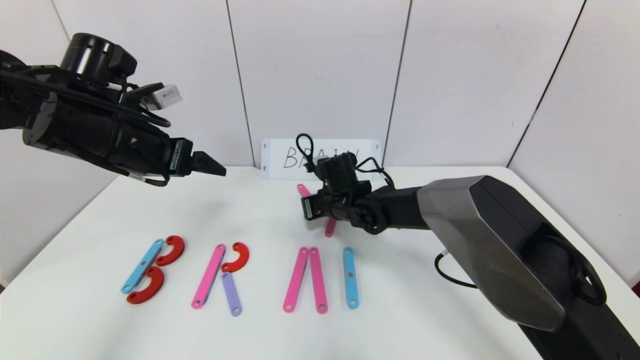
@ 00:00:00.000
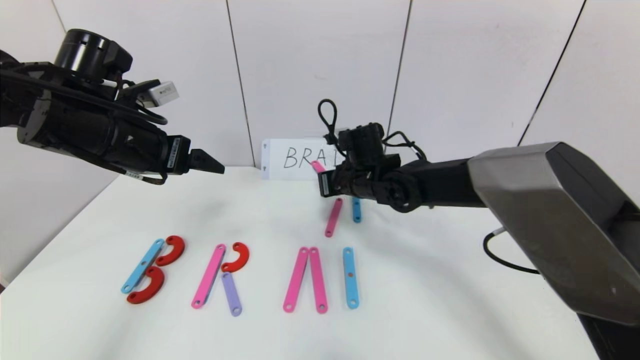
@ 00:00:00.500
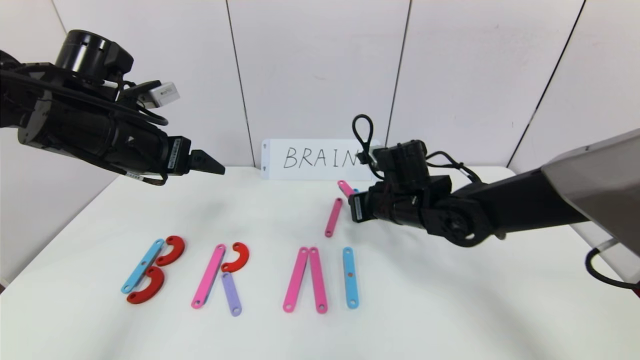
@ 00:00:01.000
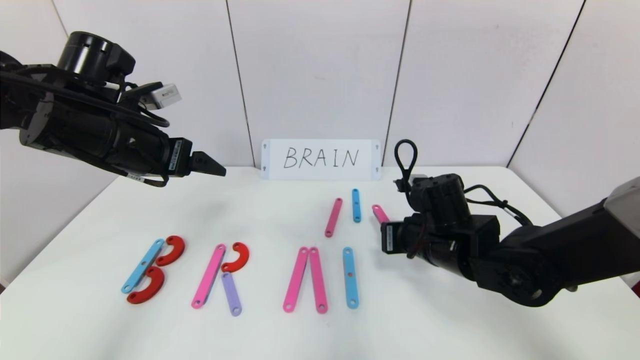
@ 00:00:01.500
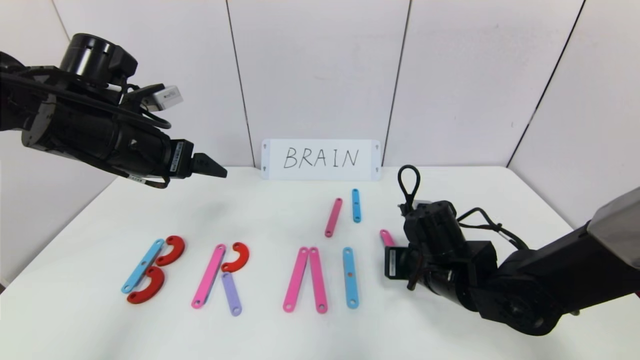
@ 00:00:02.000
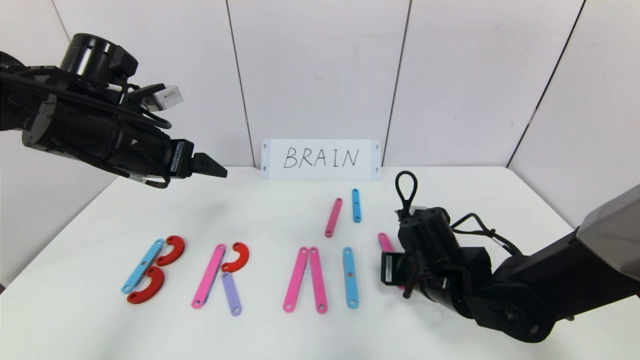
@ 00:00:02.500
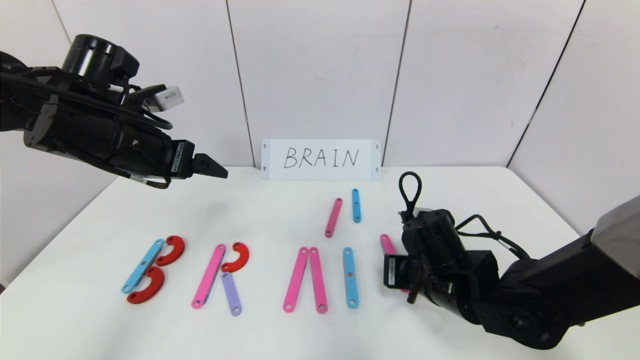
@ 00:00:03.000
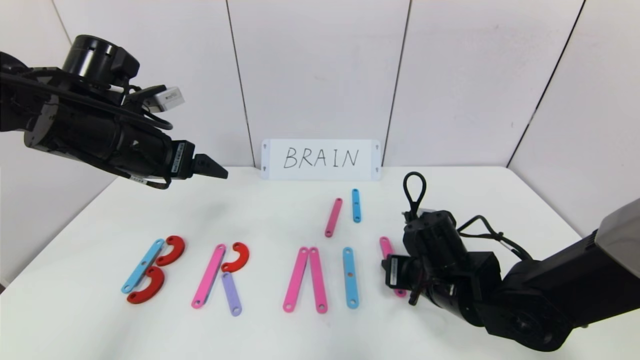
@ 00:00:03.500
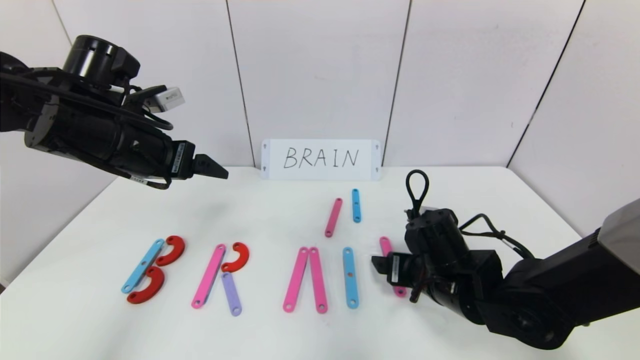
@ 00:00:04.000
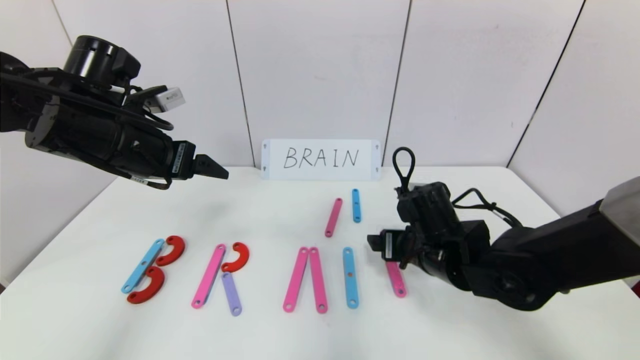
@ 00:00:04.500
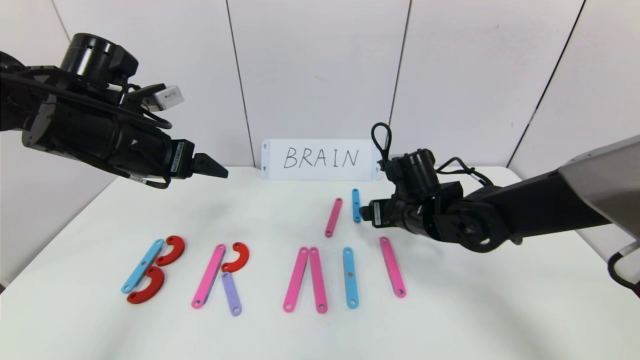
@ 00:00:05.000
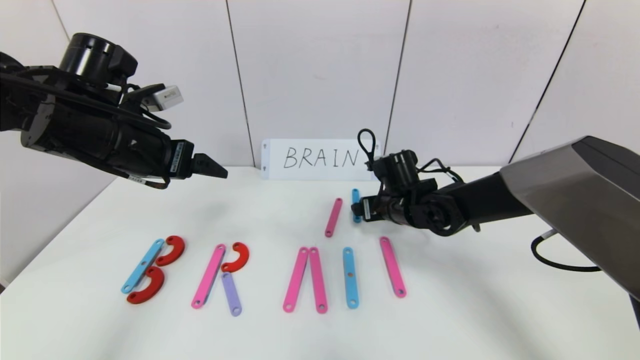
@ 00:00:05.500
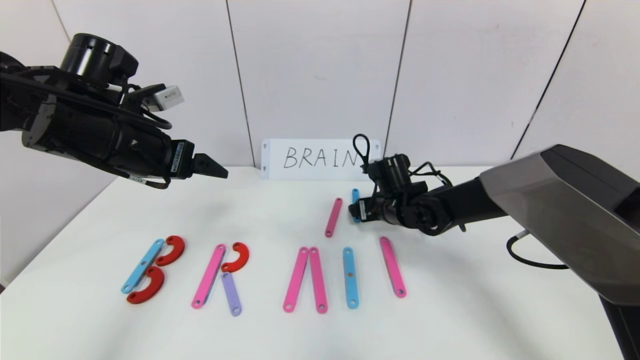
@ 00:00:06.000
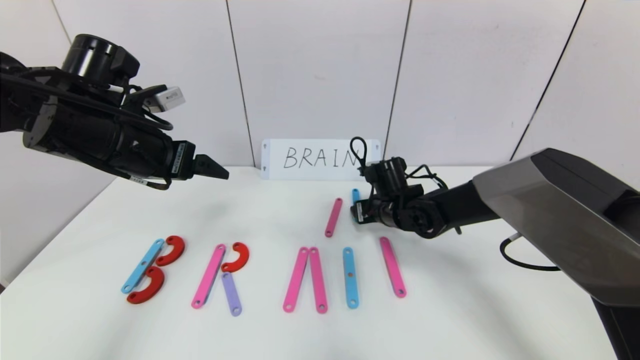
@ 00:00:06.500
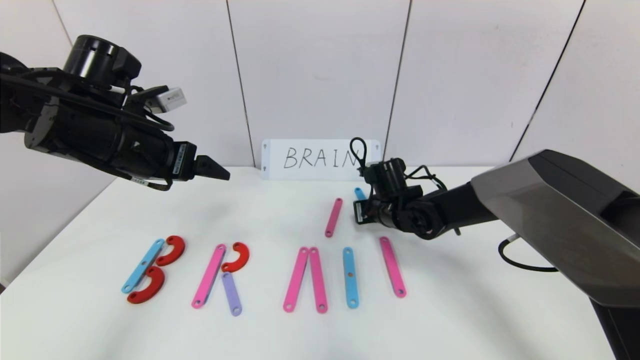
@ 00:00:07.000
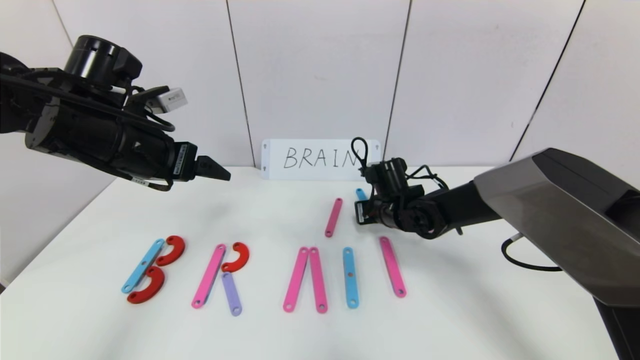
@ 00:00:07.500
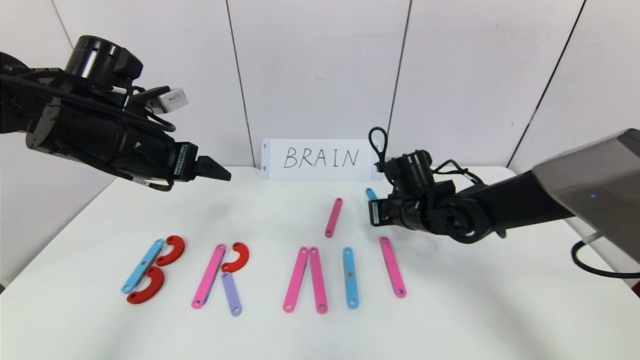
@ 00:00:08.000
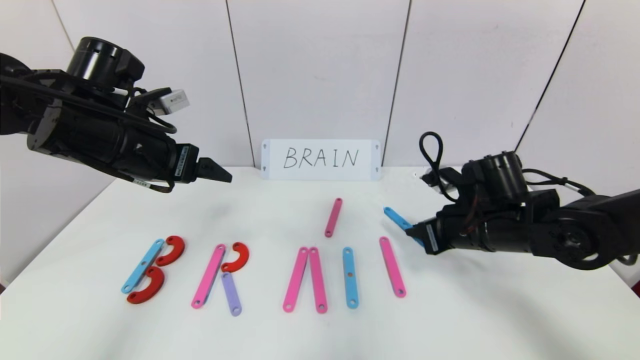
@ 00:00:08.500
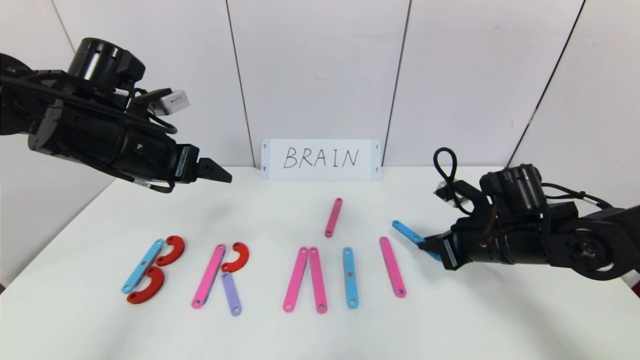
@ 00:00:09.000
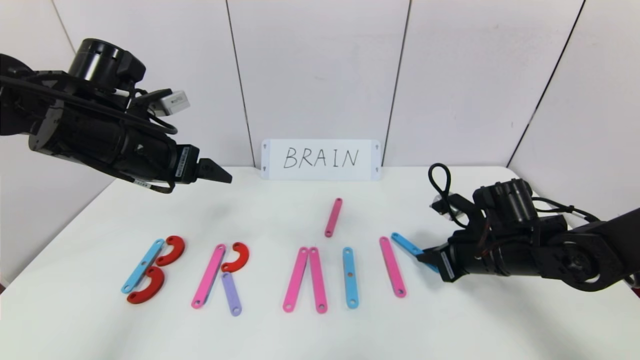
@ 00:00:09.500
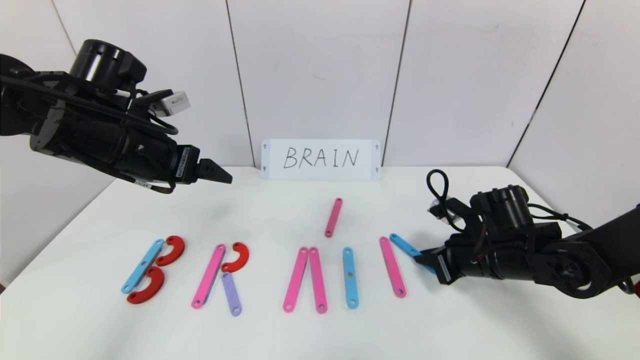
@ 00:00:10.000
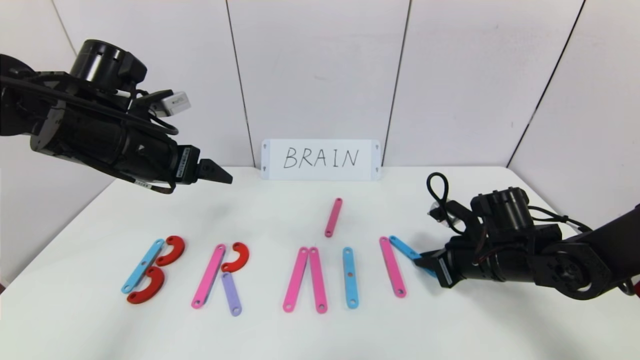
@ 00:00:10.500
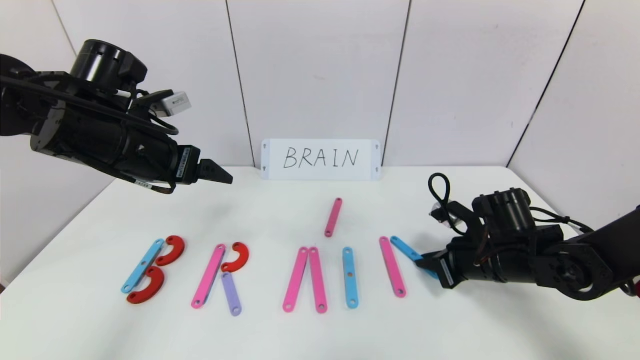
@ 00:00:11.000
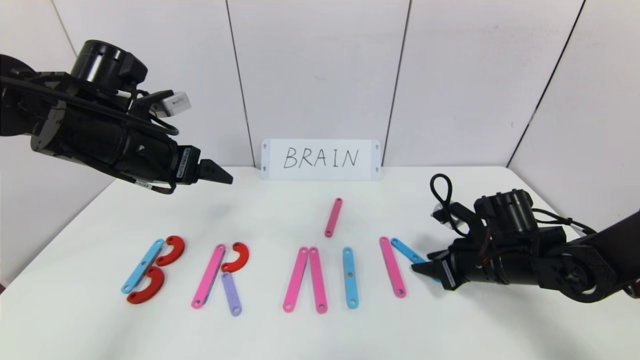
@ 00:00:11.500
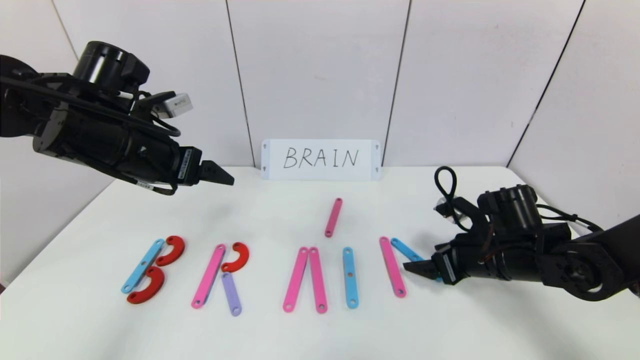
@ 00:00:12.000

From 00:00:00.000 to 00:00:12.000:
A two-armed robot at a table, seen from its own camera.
Task of the whole recording: rearrange the word baai as brain.
From 00:00:00.000 to 00:00:02.000: The right gripper shifts roughly 20 cm backward and to the right.
From 00:00:02.000 to 00:00:04.000: The right gripper opens its fingers.
From 00:00:04.000 to 00:00:06.000: The right gripper heads forward, covering roughly 15 cm.
From 00:00:06.000 to 00:00:08.000: The right gripper changes place by some 5 cm, and closes up.
From 00:00:08.000 to 00:00:10.000: The right gripper shifts approximately 10 cm to the right and backward.
From 00:00:10.000 to 00:00:12.000: The right gripper opens its fingers.

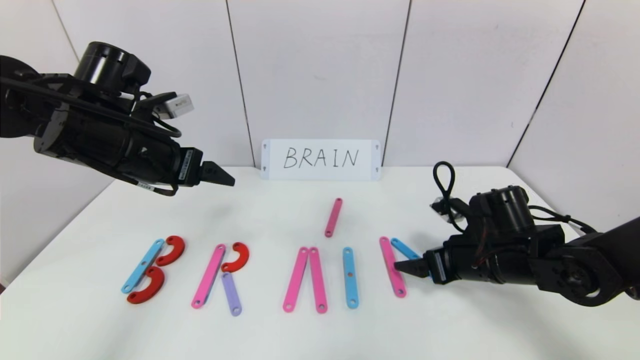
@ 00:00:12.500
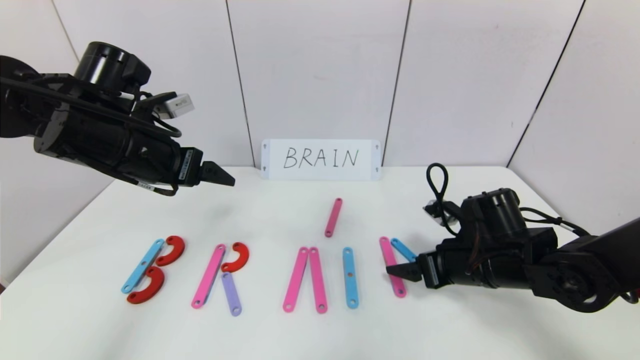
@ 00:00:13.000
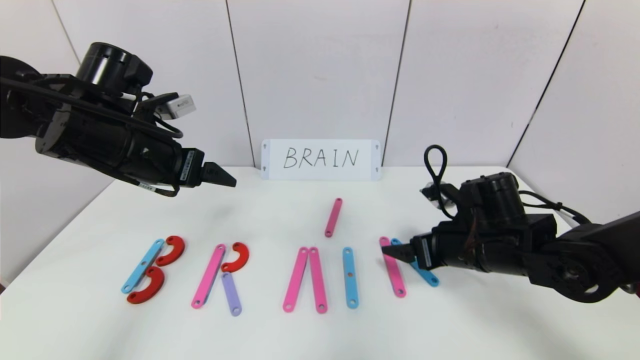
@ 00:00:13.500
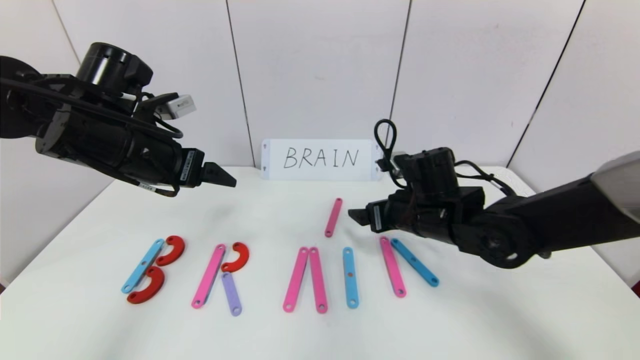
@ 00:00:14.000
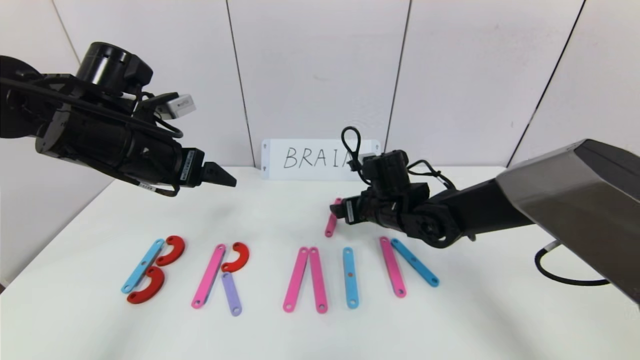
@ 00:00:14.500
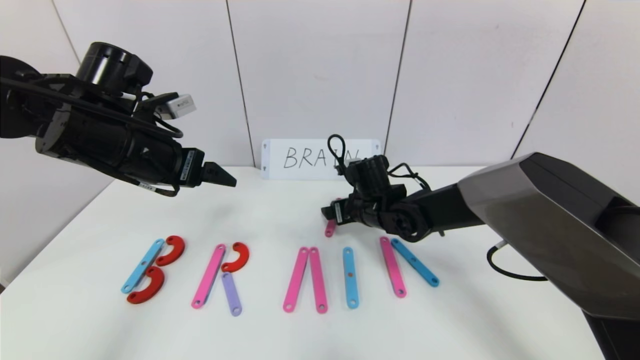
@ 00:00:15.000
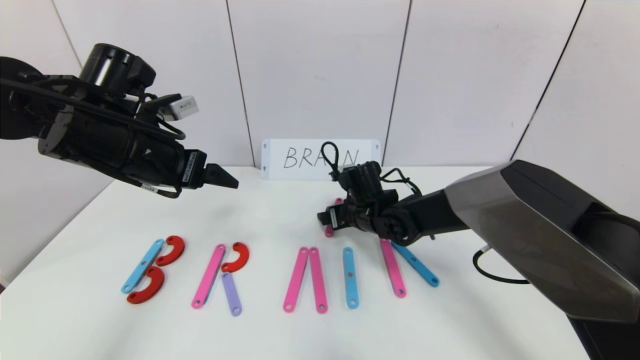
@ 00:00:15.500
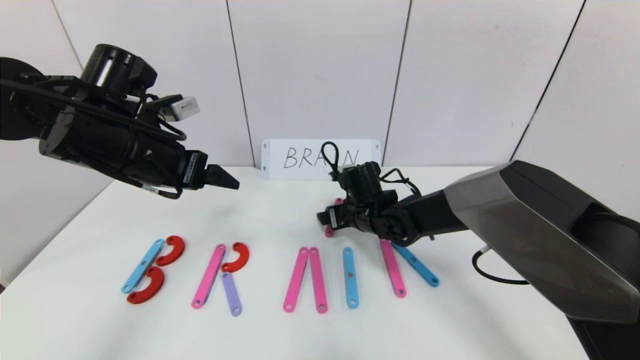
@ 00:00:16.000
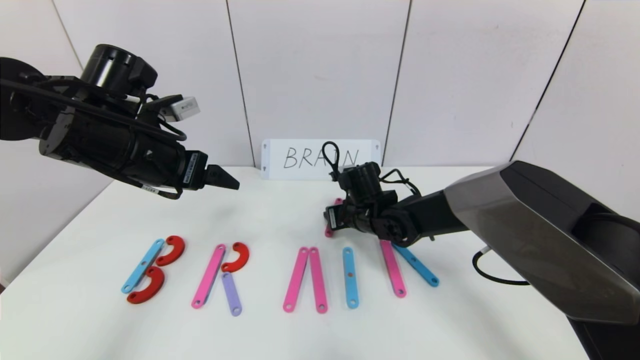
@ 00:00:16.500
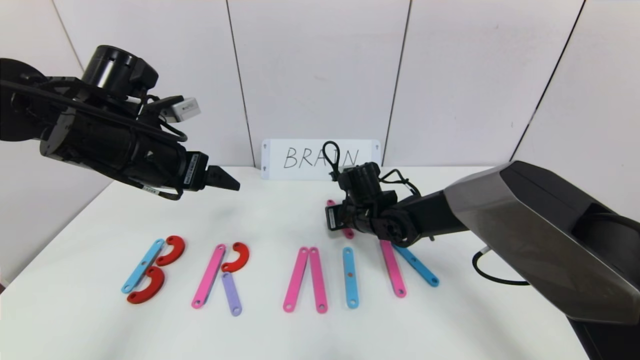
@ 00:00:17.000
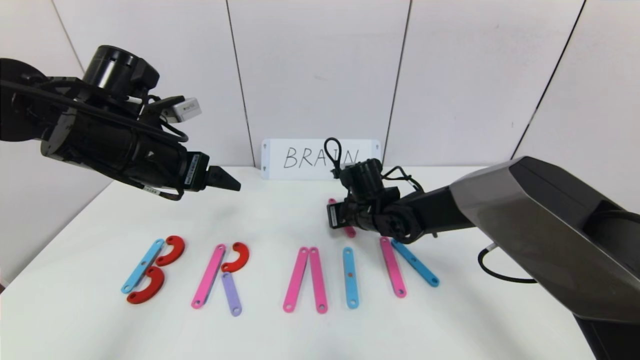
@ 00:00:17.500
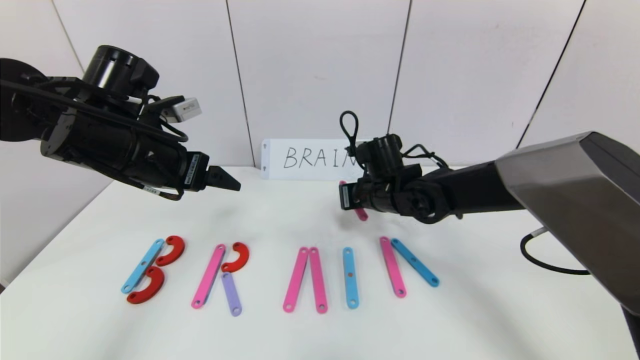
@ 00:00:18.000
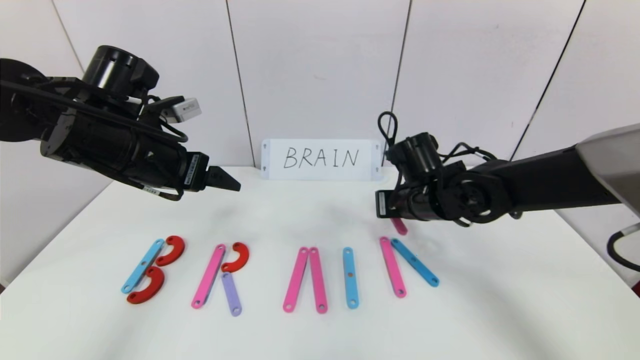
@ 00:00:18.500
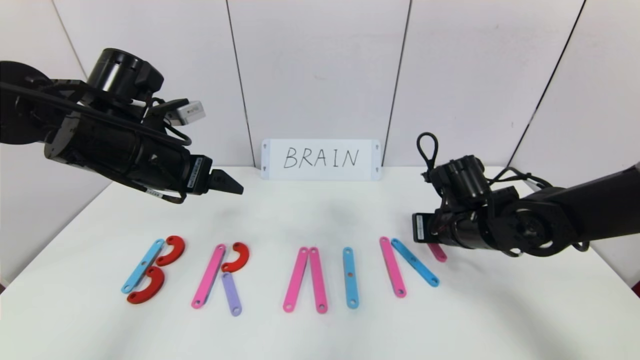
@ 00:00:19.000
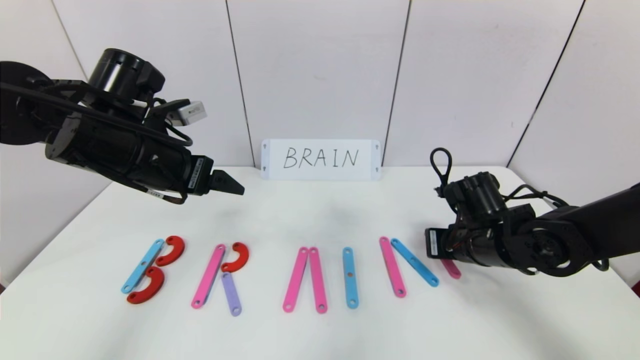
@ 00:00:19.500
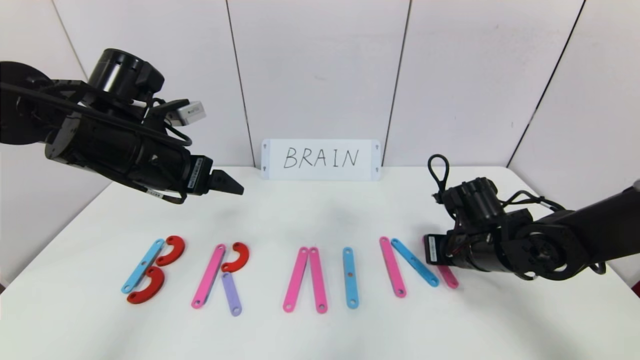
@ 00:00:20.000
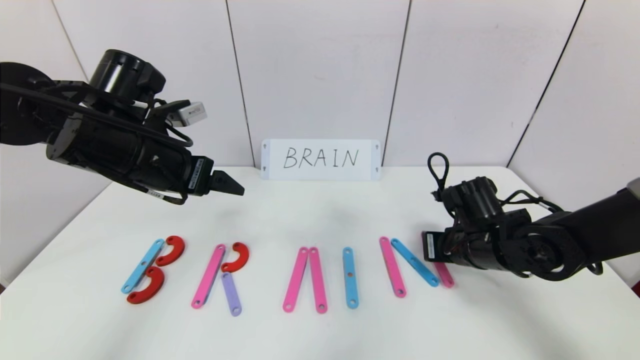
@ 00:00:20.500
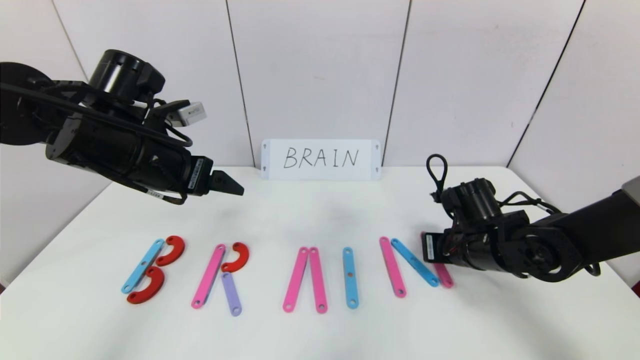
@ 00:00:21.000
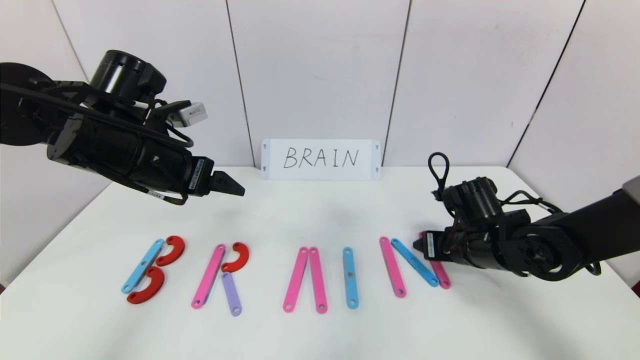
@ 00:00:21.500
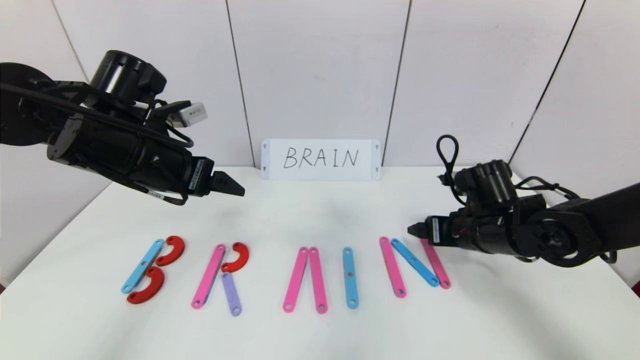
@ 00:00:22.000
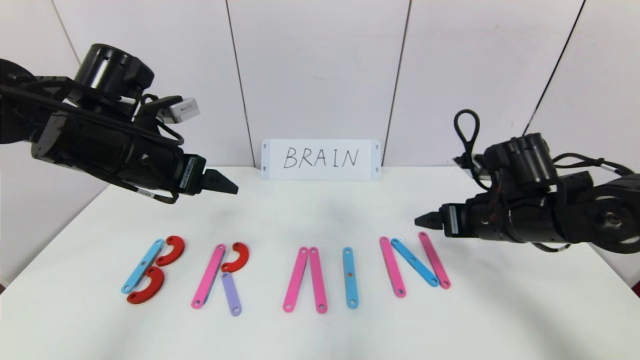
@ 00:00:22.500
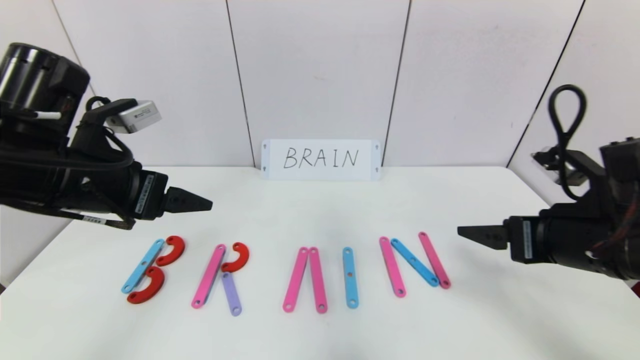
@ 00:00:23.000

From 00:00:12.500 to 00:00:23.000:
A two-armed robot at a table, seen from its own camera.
Task of the whole recording: rearrange the word baai as brain.
Step, from 00:00:12.500 to 00:00:21.500: Place the character N after character I.
From 00:00:12.500 to 00:00:14.500: The right gripper heads to the left and forward, covering some 15 cm.
From 00:00:14.500 to 00:00:16.500: The right gripper ends up some 5 cm from where it was, and closes up.
From 00:00:16.500 to 00:00:19.000: The right gripper is displaced to the right and backward by approximately 15 cm, and closes.
From 00:00:19.000 to 00:00:21.000: There are only small adjustments of the grippers.
From 00:00:21.000 to 00:00:23.000: The right gripper goes some 15 cm upward and backward, and opens up. Meanwhile the left gripper is displaced backward by roughly 5 cm.
